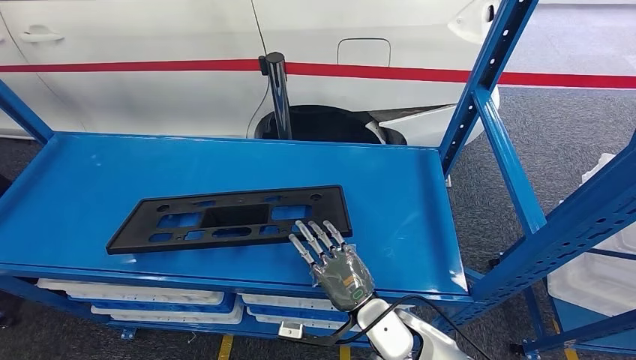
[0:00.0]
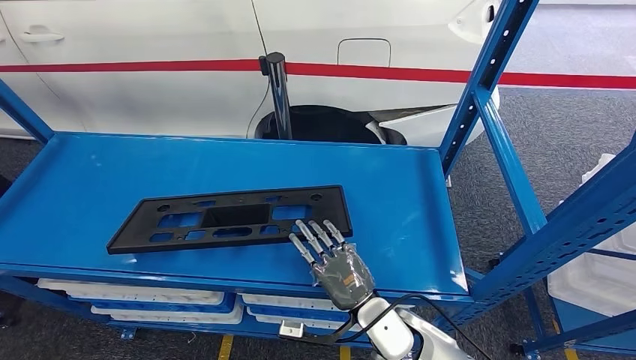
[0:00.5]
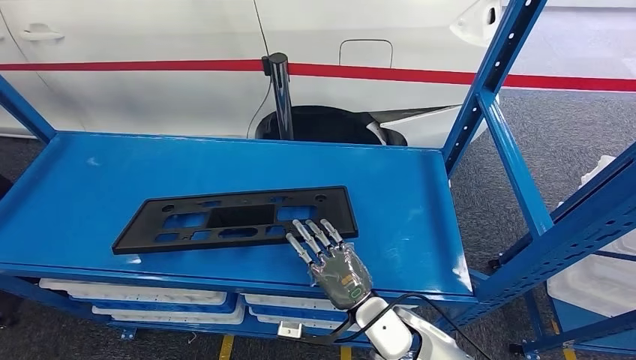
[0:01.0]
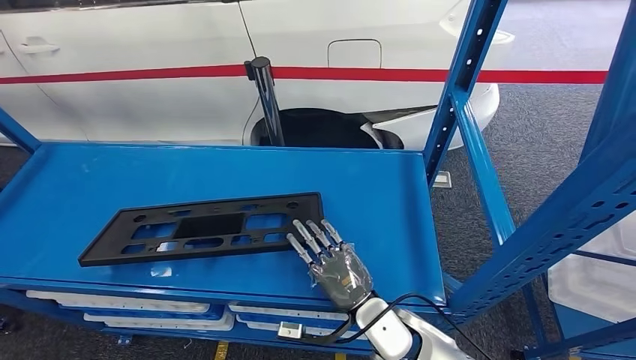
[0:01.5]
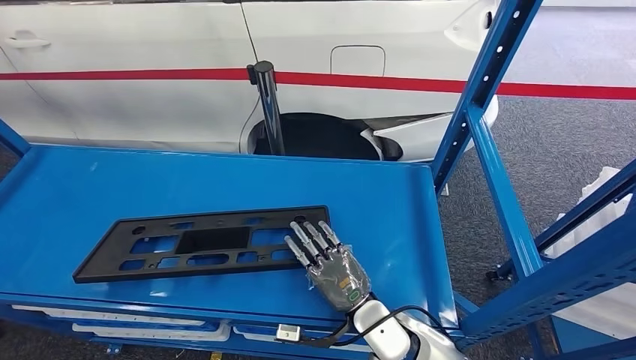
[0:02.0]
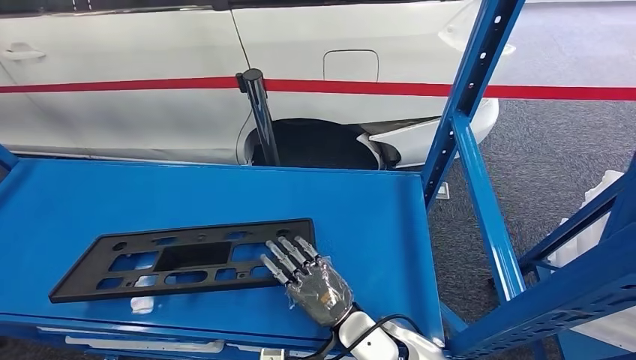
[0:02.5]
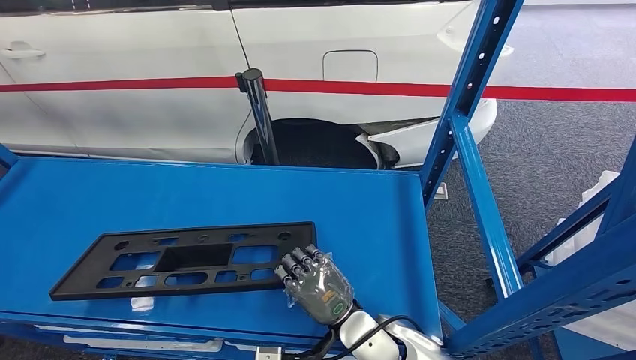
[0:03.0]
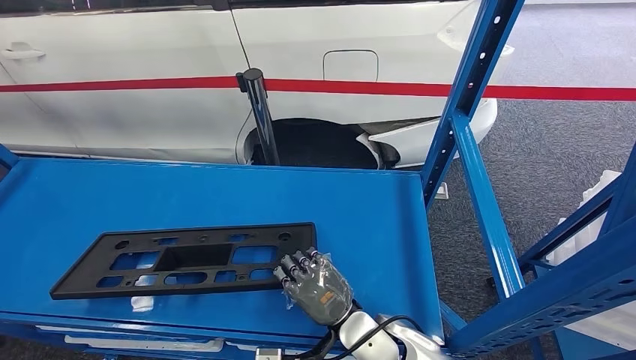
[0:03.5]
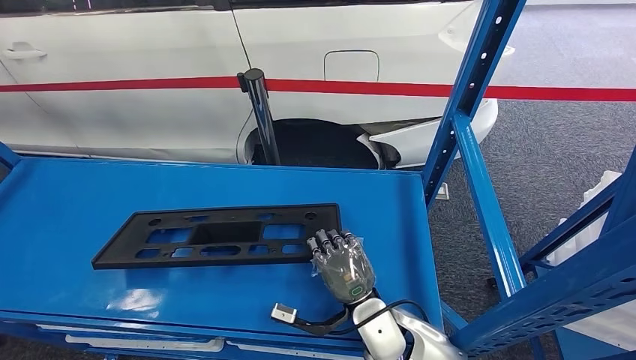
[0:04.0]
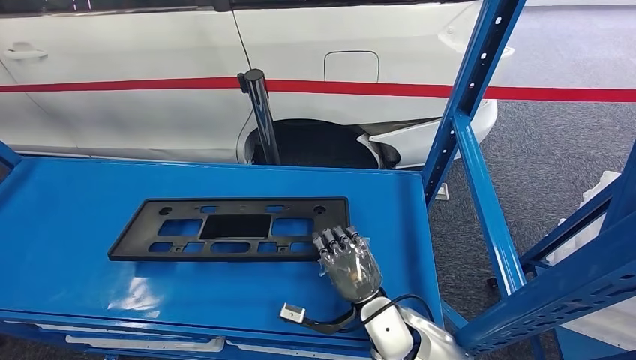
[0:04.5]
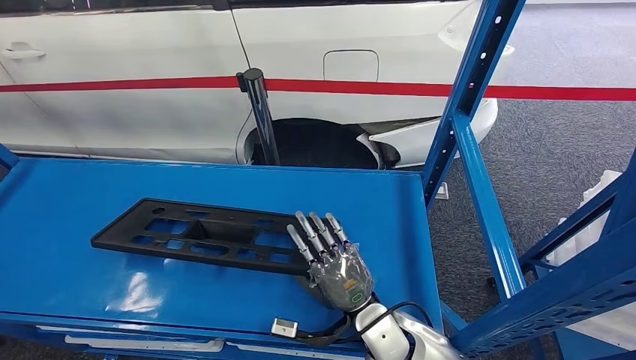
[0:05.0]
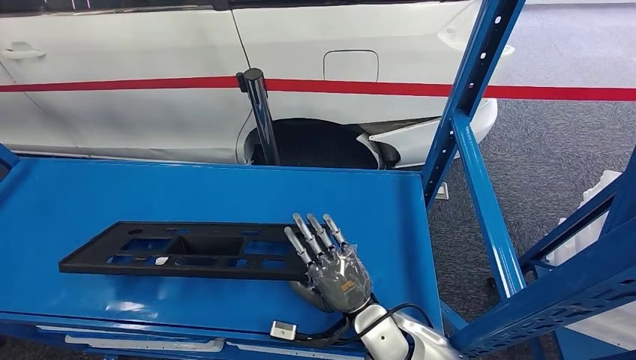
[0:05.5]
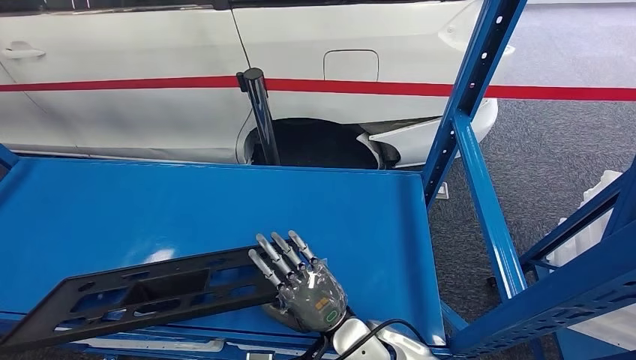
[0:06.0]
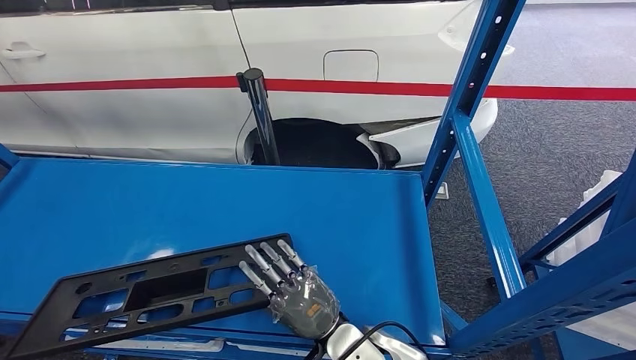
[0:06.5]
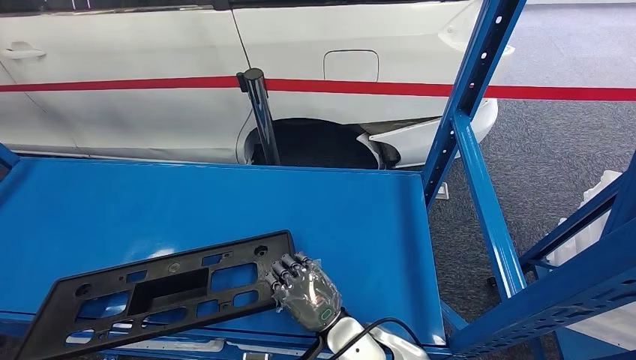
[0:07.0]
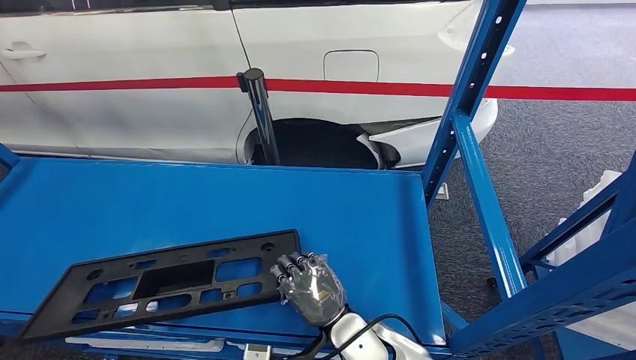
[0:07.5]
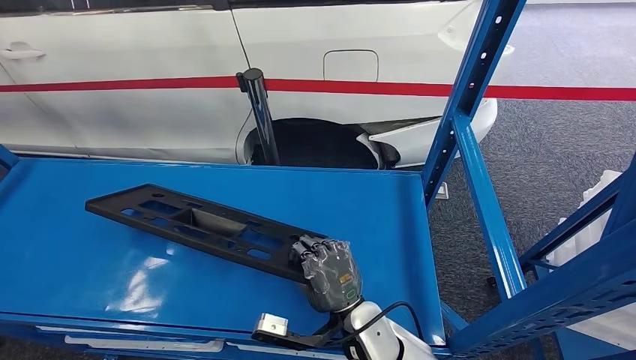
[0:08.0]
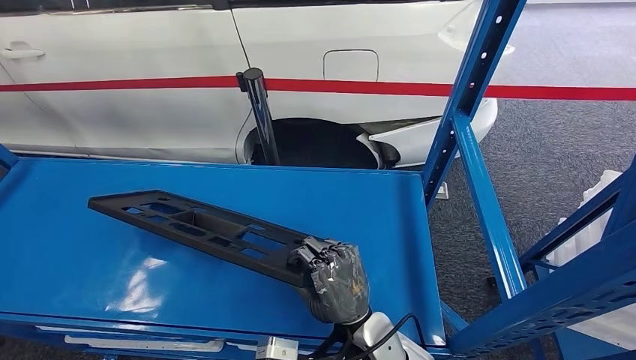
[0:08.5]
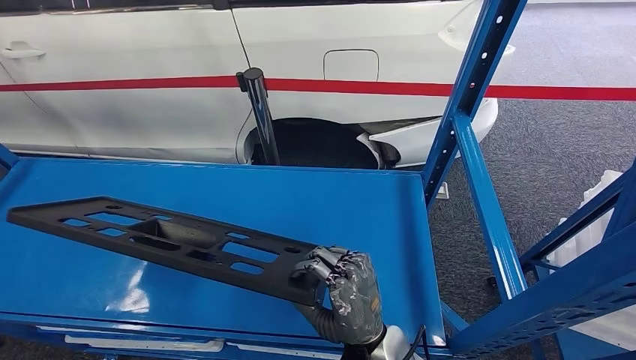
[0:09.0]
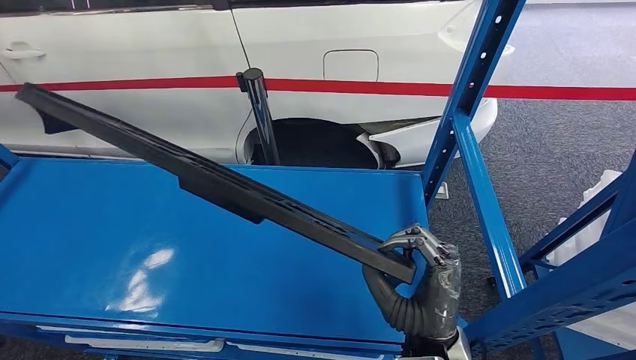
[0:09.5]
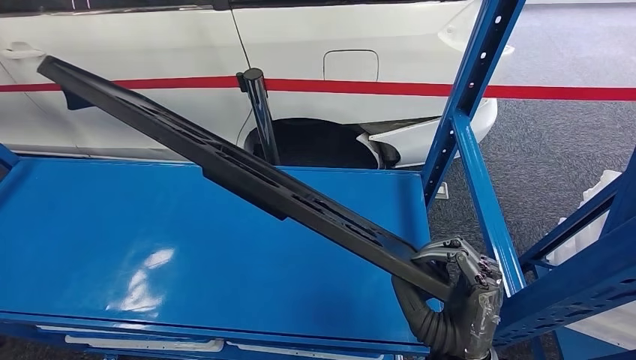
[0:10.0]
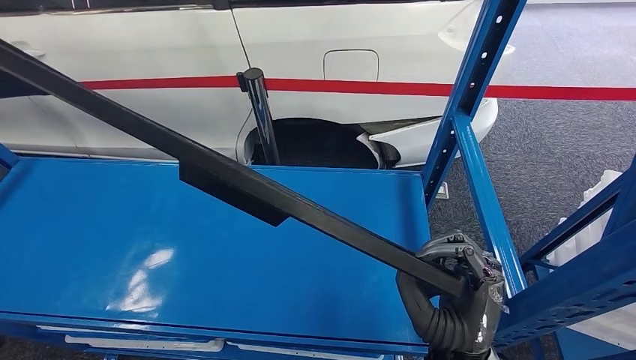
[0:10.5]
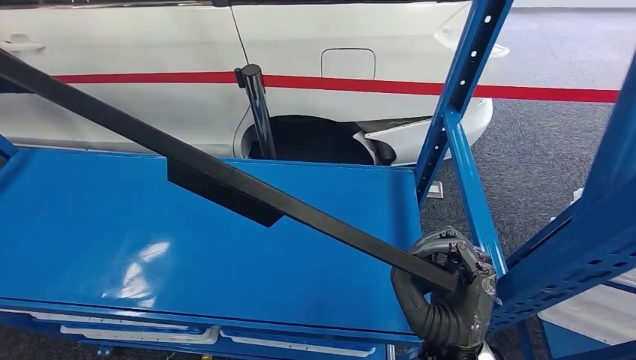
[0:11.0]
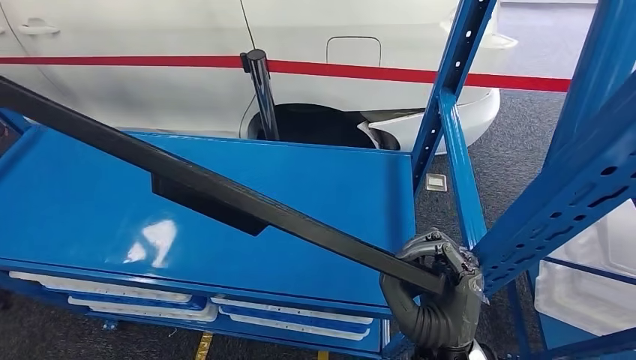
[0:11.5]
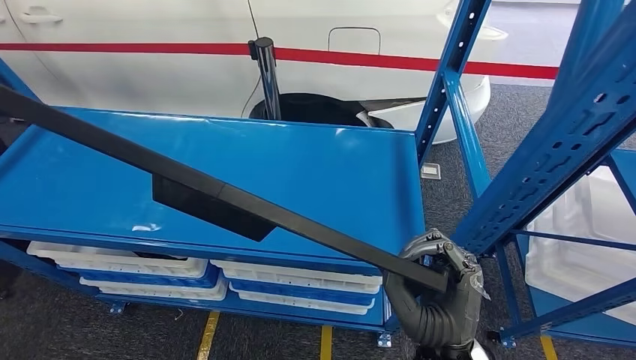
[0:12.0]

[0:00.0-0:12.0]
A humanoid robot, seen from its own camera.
Step, 0:00.0 to 0:10.0: Pick up the large material from the shelf.
0:04.0 to 0:06.0: The hands stay close to where they were, moving slightly.
0:08.0 to 0:10.0: The right hand is displaced to the right, upward and backward by about 15 cm.

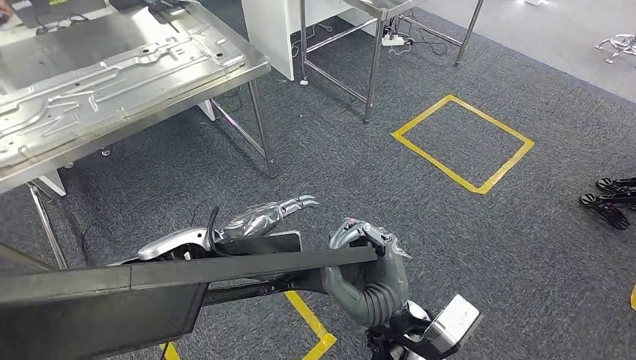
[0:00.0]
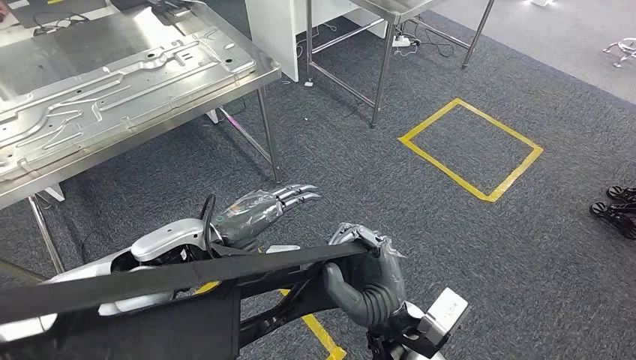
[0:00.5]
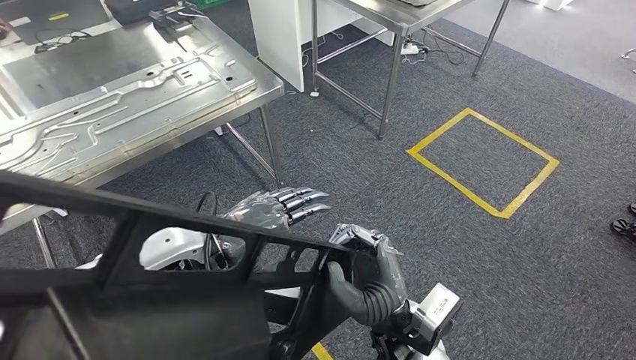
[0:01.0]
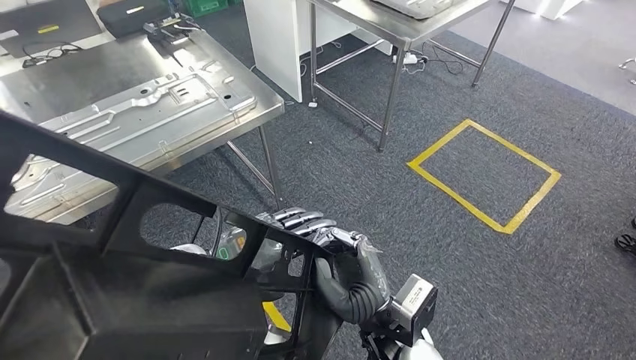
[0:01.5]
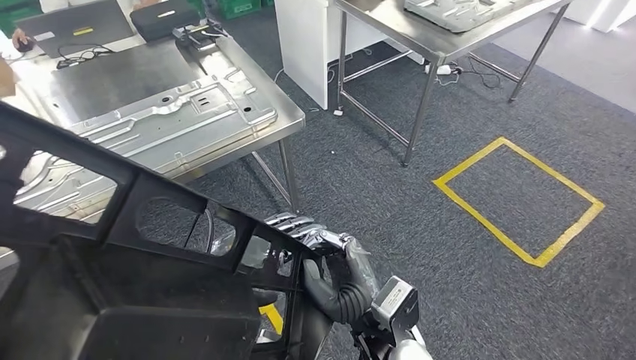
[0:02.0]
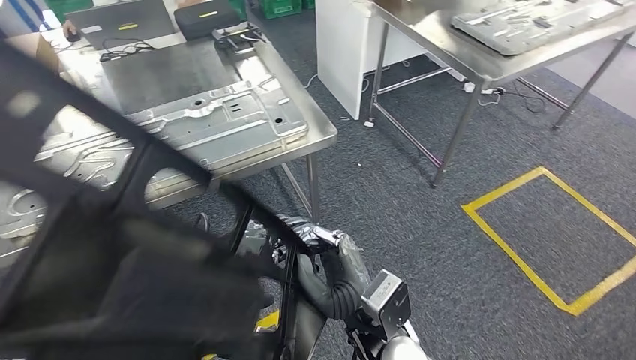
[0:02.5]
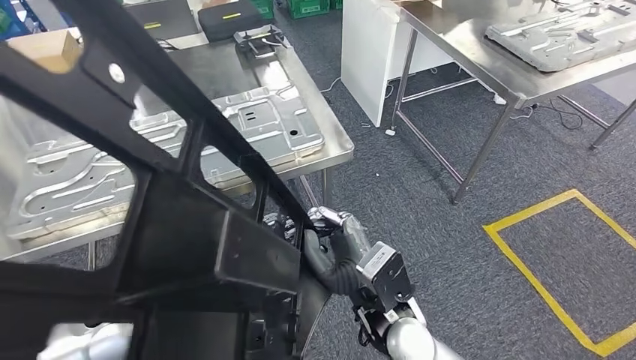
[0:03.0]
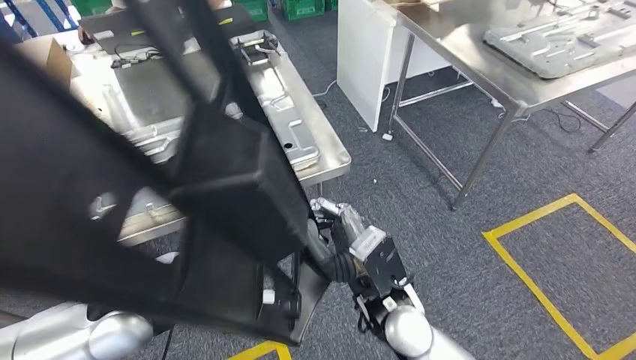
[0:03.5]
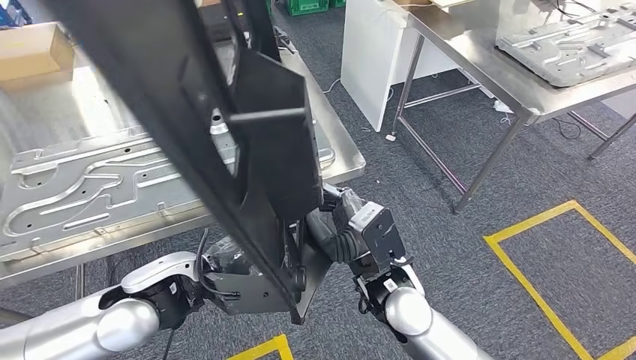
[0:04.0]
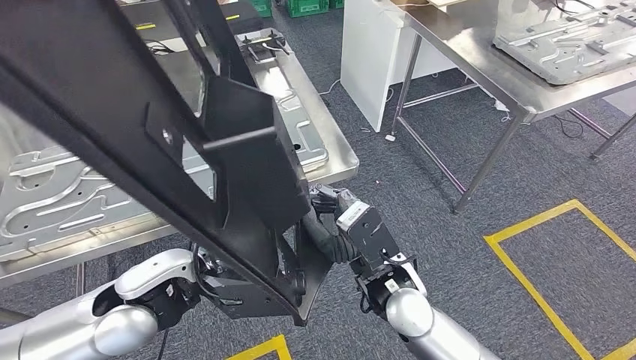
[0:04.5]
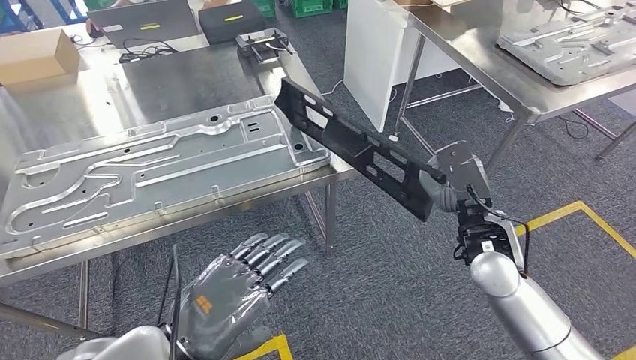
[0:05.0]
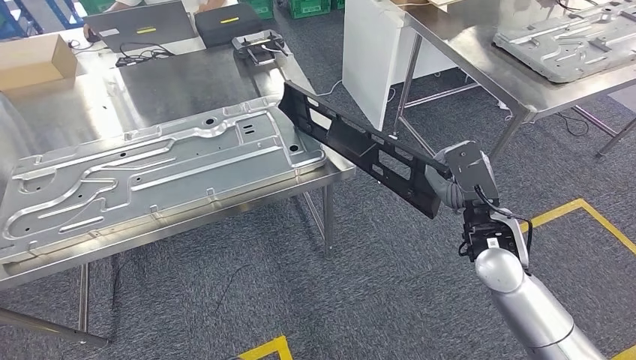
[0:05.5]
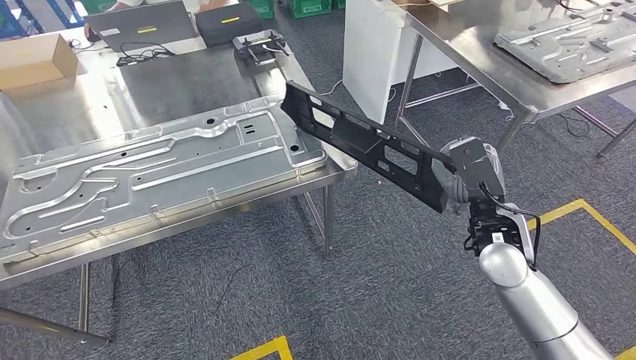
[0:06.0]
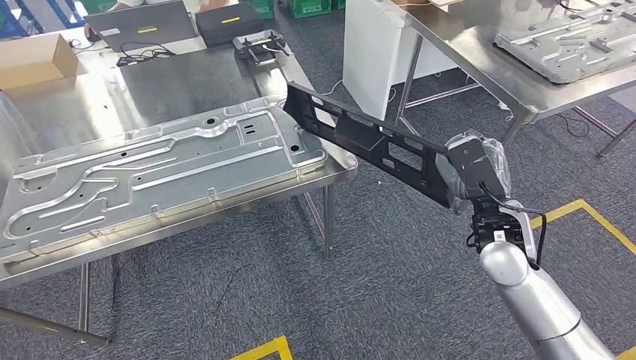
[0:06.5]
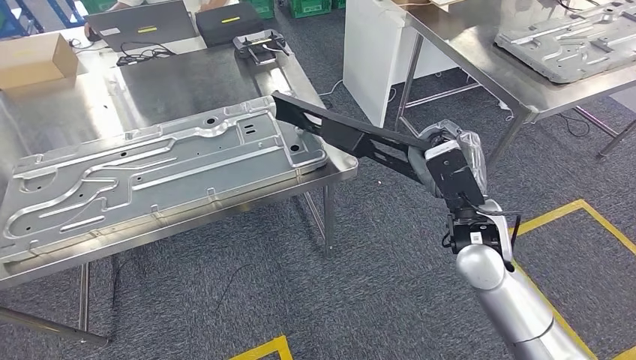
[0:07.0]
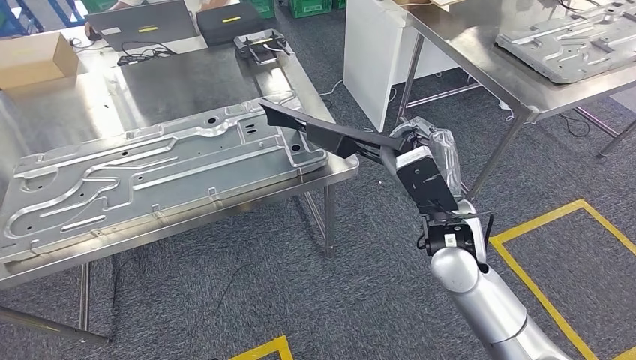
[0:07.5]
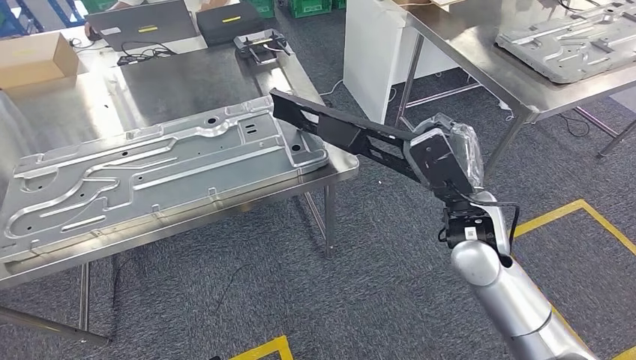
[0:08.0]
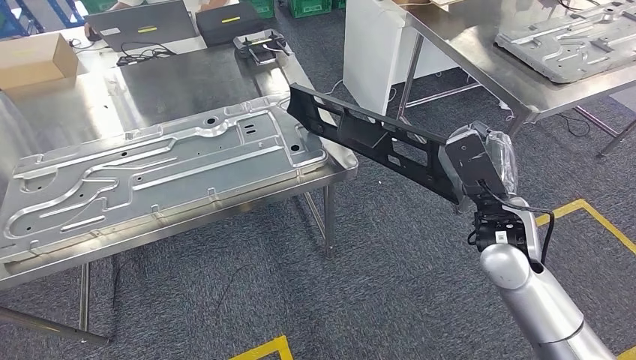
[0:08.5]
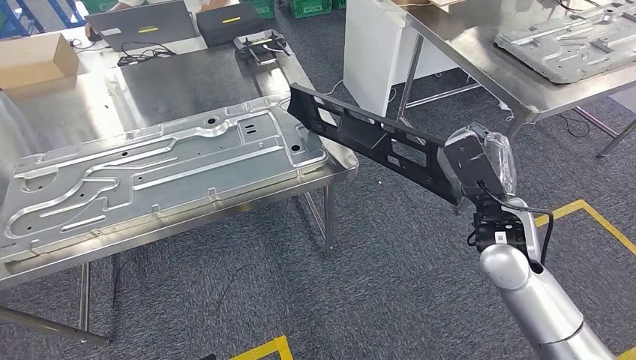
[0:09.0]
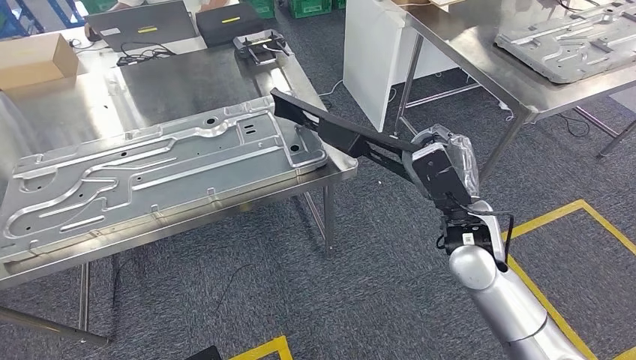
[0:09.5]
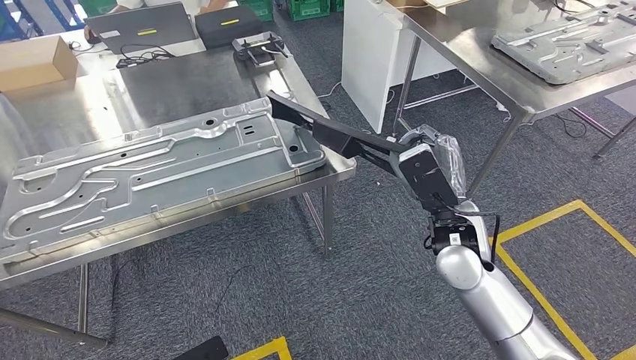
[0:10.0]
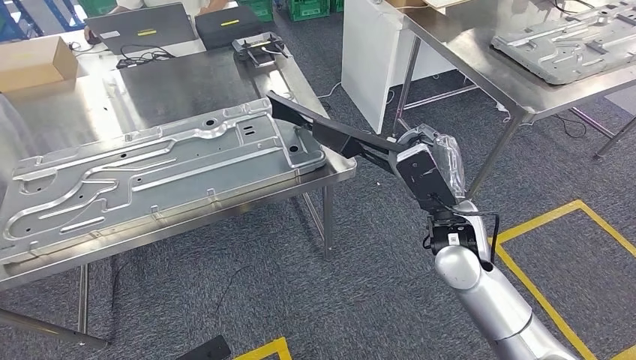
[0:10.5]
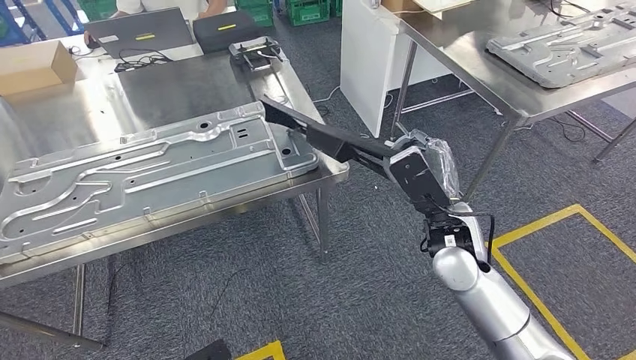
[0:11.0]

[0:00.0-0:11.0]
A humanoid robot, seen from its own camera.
Step, 0:00.0 to 0:06.5: Move the large material to the workbench.
0:05.5 to 0:07.5: The left hand shifts by approximately 5 cm. Meanwhile the right hand goes about 10 cm to the left.
0:07.5 to 0:09.0: The right hand is displaced to the right by some 10 cm.
